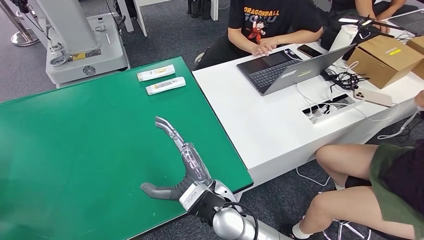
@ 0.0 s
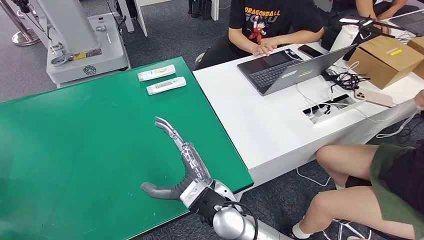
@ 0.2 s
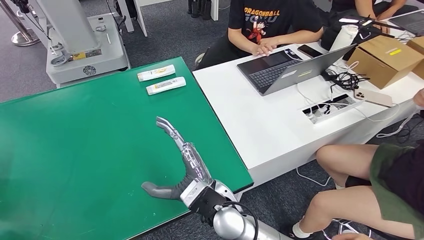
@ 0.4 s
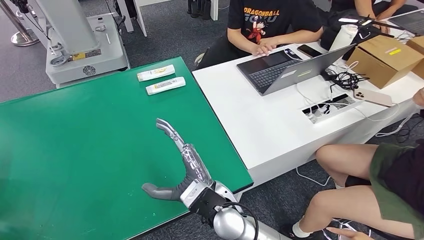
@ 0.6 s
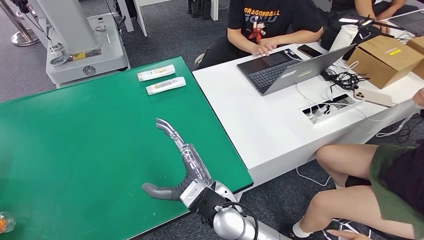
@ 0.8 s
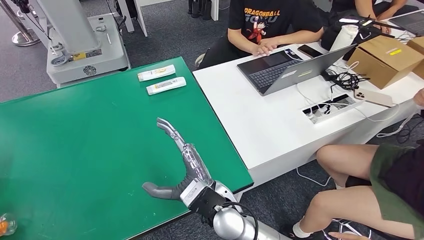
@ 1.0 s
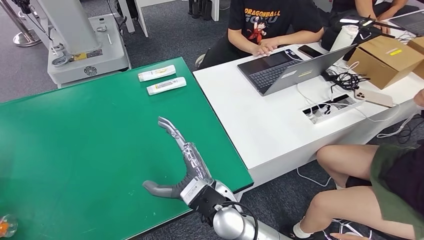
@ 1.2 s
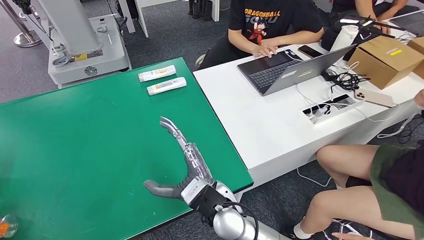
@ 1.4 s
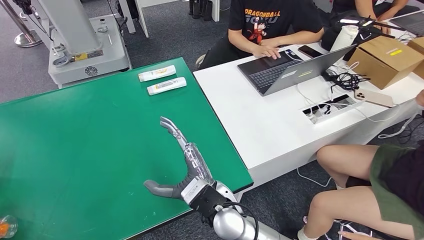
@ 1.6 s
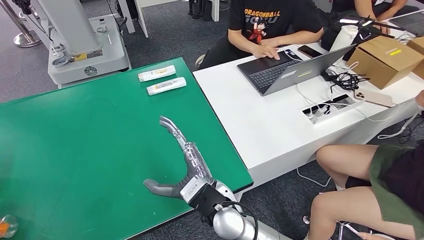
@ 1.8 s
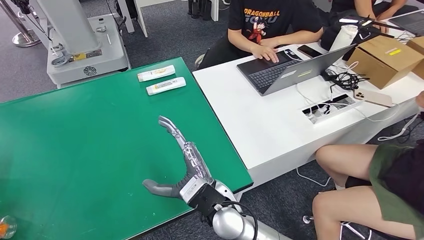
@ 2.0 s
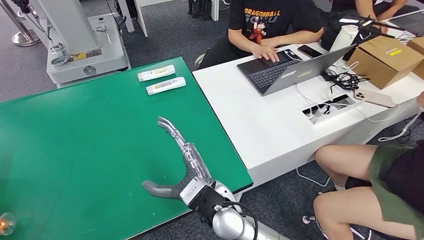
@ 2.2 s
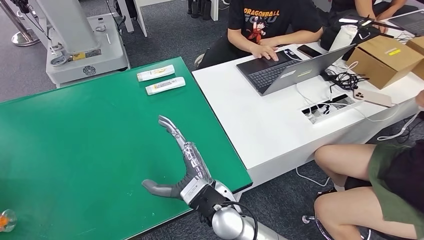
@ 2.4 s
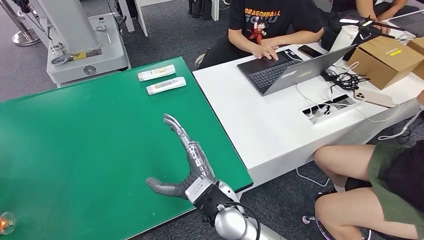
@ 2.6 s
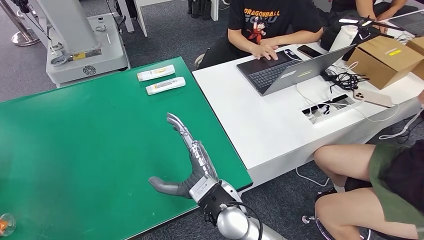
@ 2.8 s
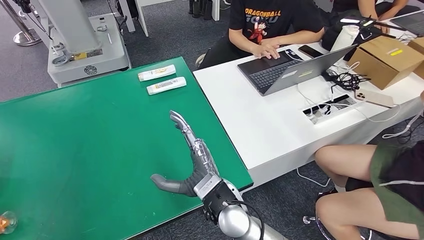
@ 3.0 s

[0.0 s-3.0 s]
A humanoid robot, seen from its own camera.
Step, 0.0 to 3.0 s: Turn the bottle to the front side.
0.0 to 1.6 s: The left hand moves downward, some 5 cm.
1.6 to 3.0 s: The left hand shifts about 20 cm upward.
